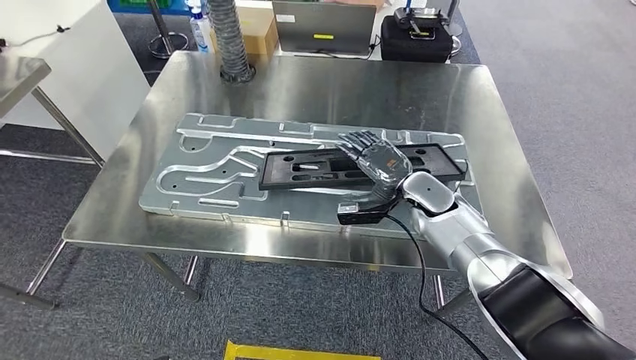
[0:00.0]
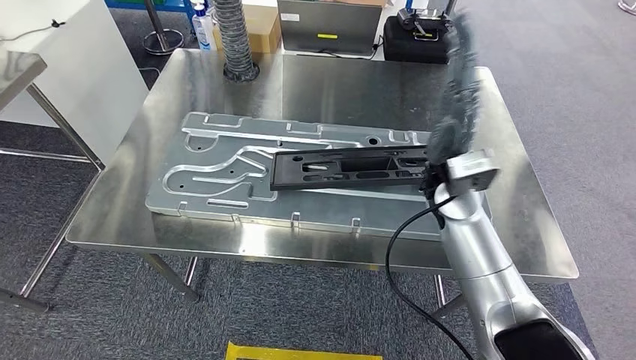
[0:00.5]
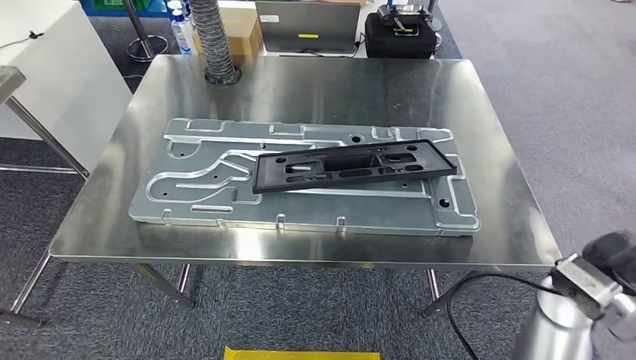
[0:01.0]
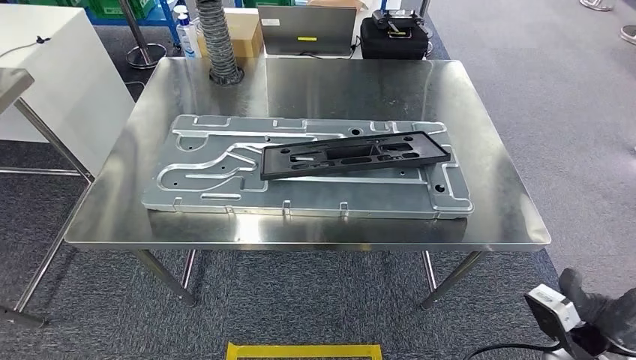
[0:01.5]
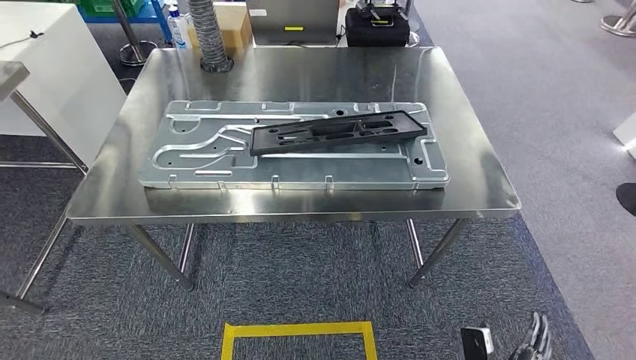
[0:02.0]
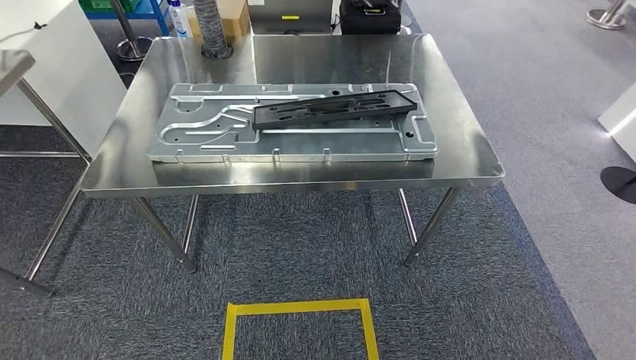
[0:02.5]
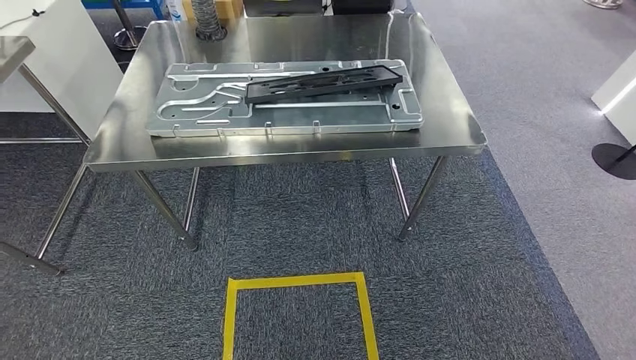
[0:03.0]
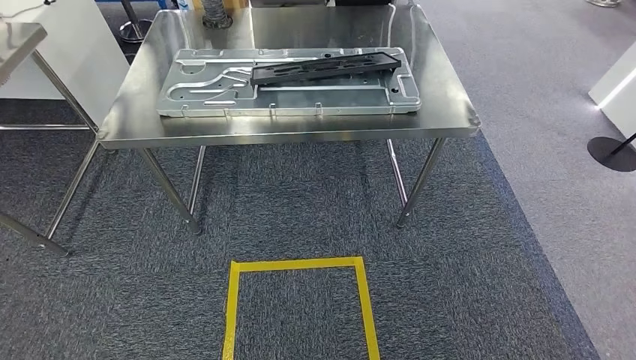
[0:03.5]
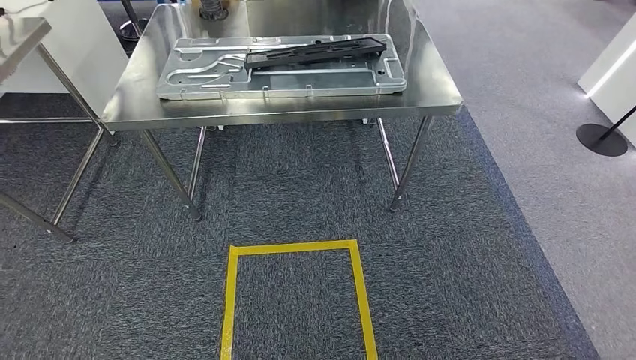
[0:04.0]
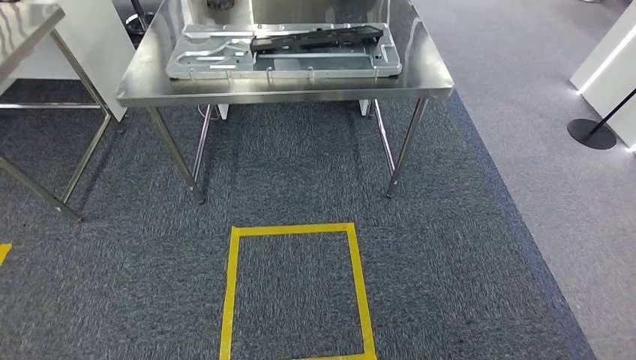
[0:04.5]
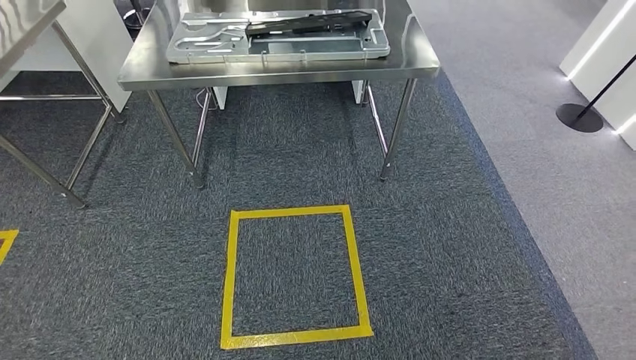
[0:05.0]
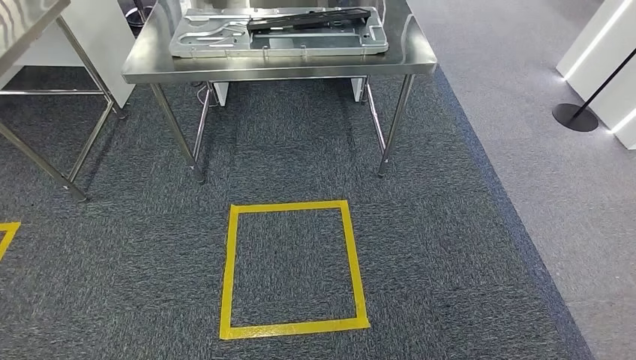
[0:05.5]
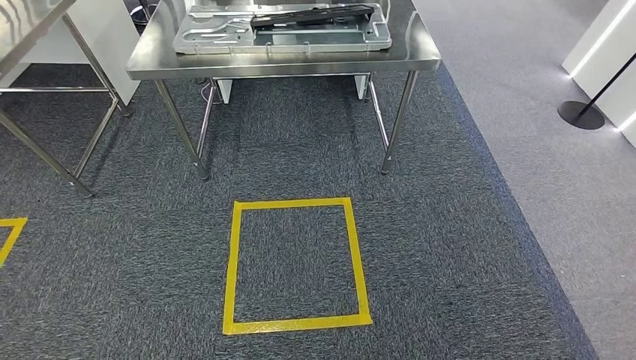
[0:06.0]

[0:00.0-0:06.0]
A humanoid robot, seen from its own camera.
Step, 0:03.0 to 0:06.0: Move to the initial position of the shelf.
